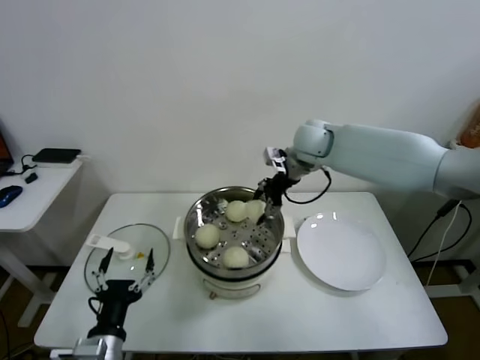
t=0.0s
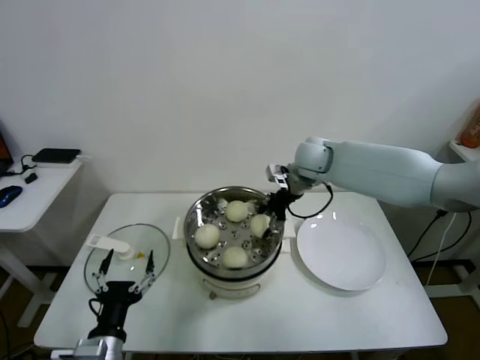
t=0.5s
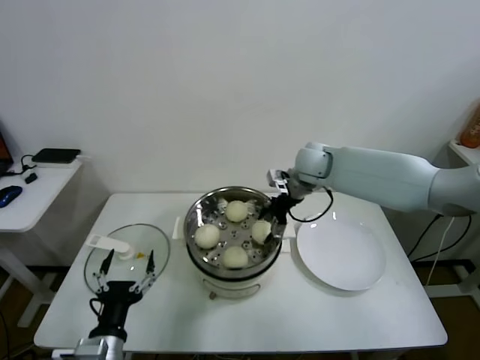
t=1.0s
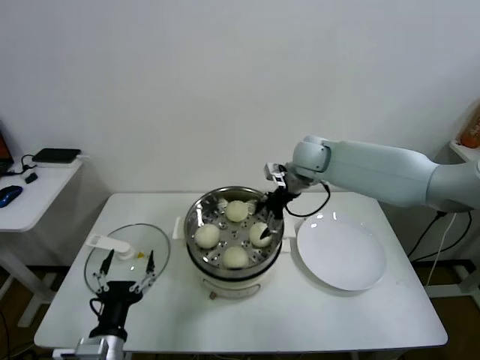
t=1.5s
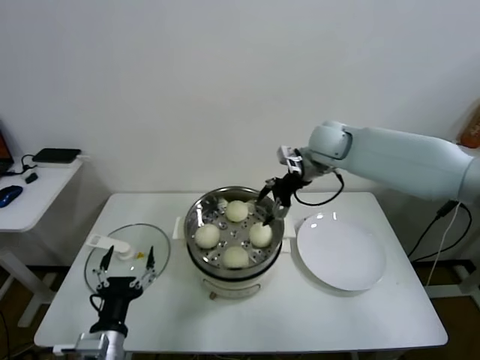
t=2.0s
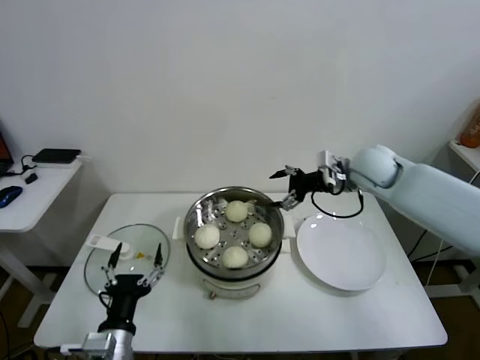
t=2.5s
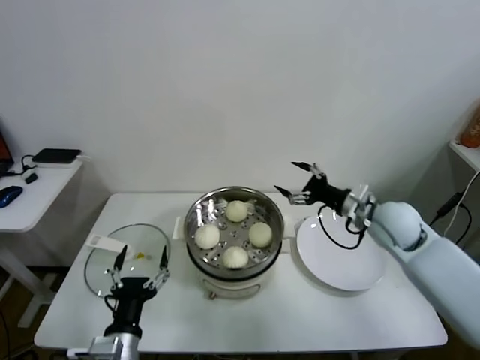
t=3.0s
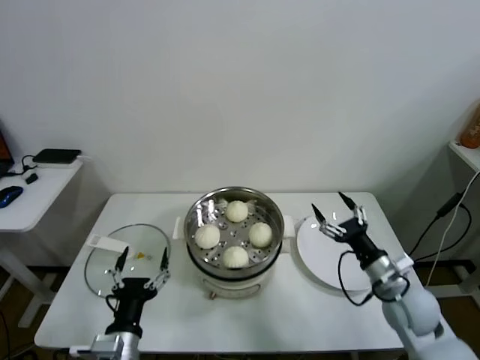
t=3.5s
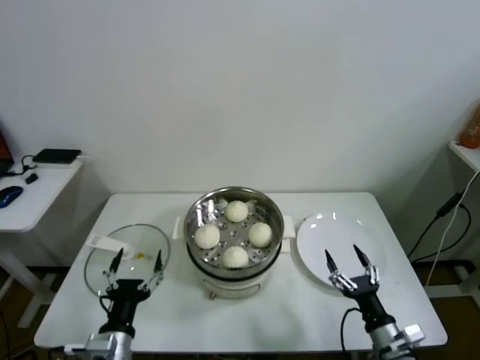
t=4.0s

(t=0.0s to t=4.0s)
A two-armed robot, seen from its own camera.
Task of the whole recording: take steamed baozi put them in steamer.
t=0.0s - t=2.0s: The right gripper opens its fingers.
t=2.0s - t=4.0s: The right gripper goes some 50 cm backward and downward.

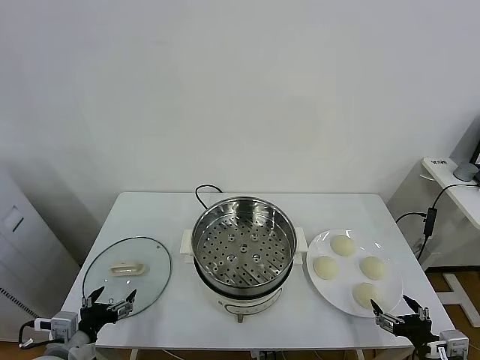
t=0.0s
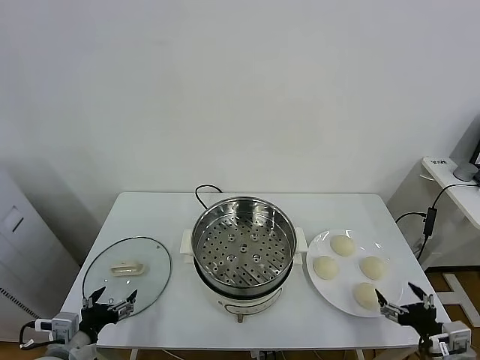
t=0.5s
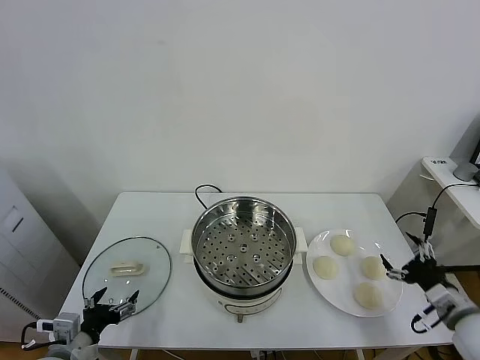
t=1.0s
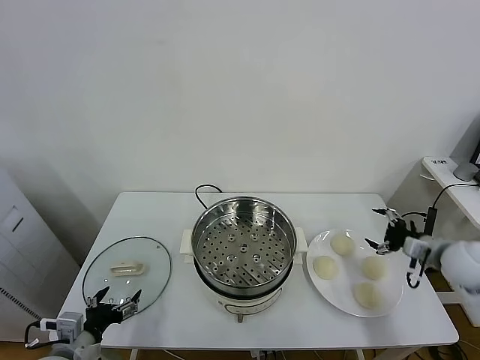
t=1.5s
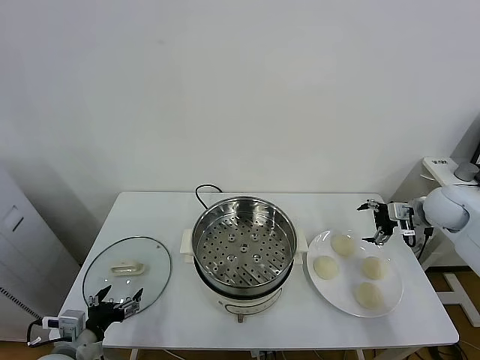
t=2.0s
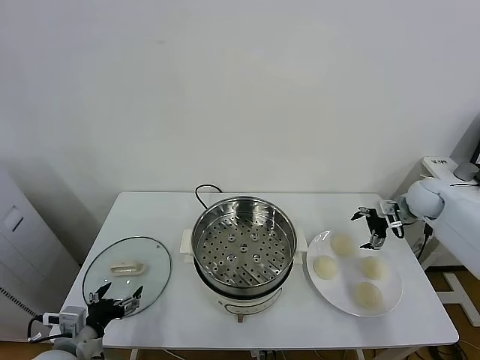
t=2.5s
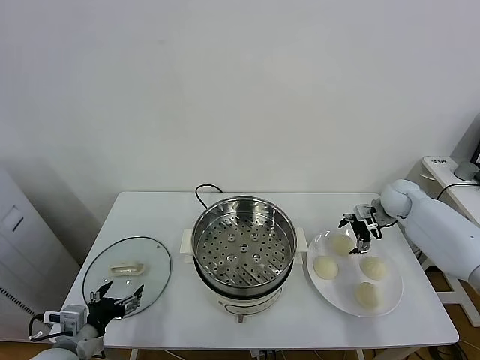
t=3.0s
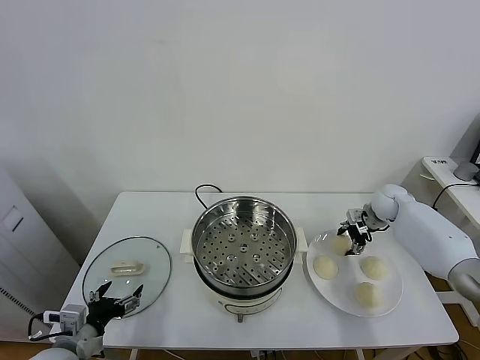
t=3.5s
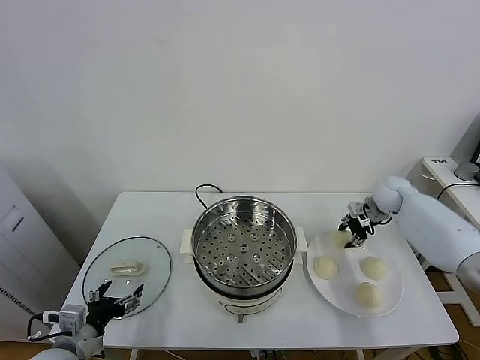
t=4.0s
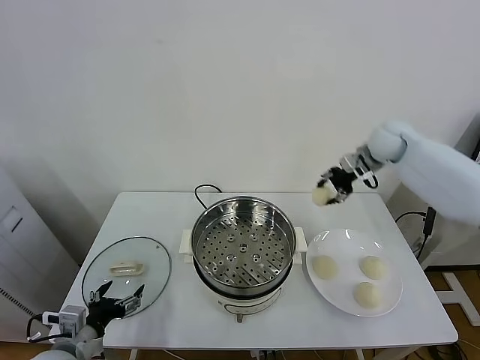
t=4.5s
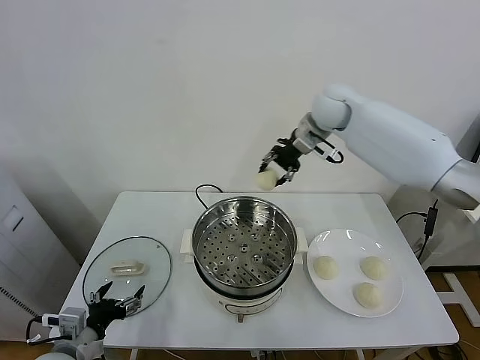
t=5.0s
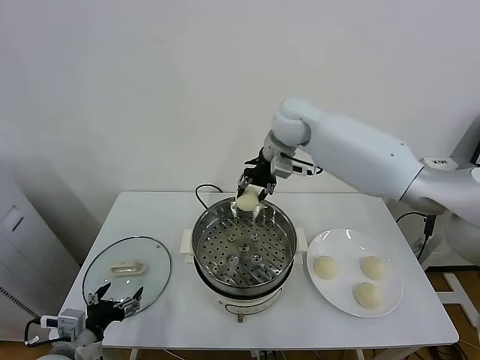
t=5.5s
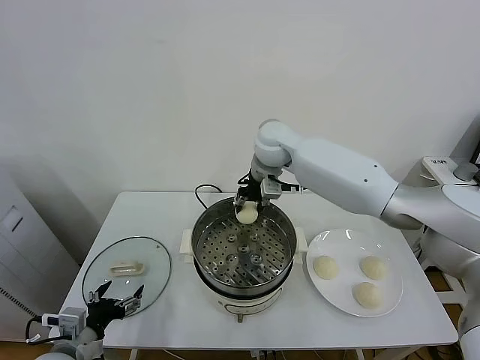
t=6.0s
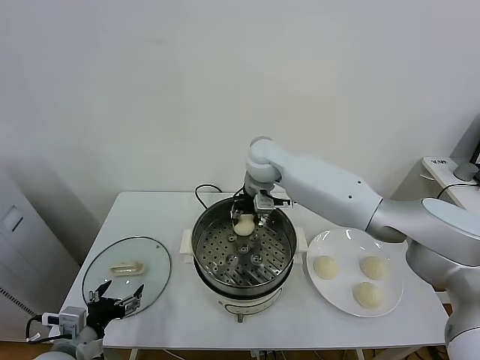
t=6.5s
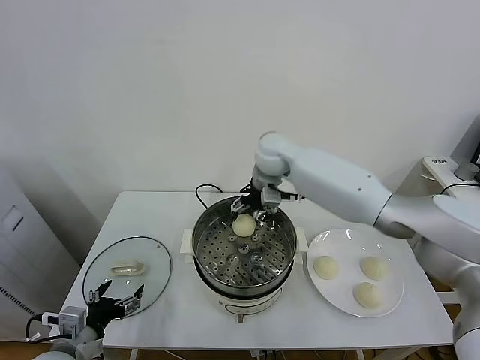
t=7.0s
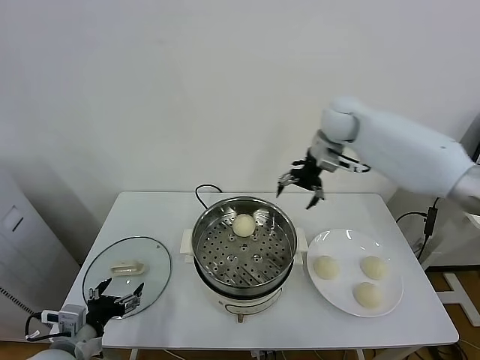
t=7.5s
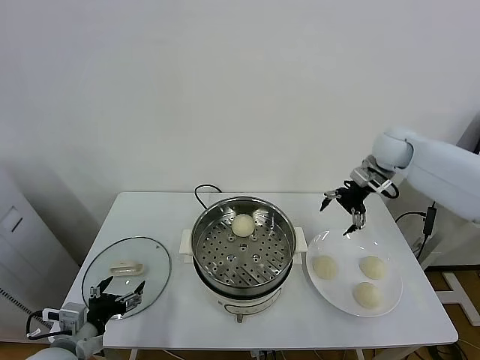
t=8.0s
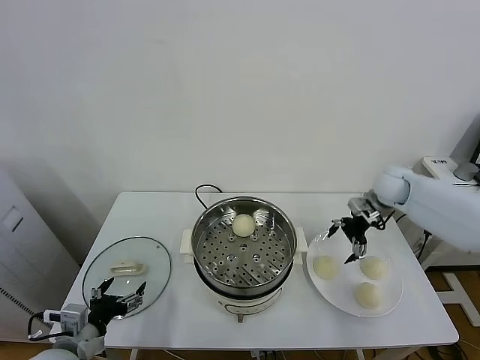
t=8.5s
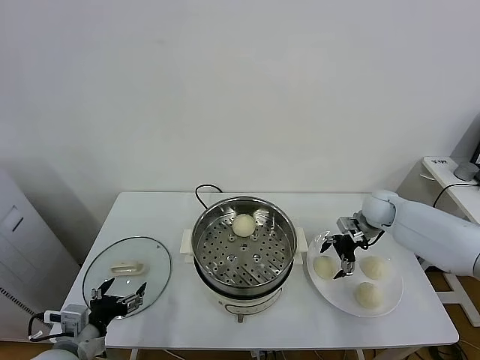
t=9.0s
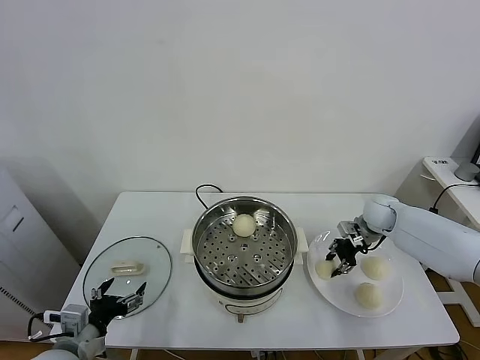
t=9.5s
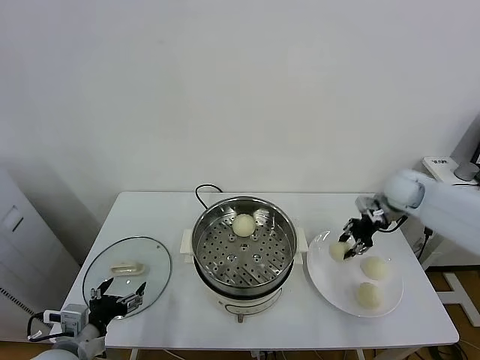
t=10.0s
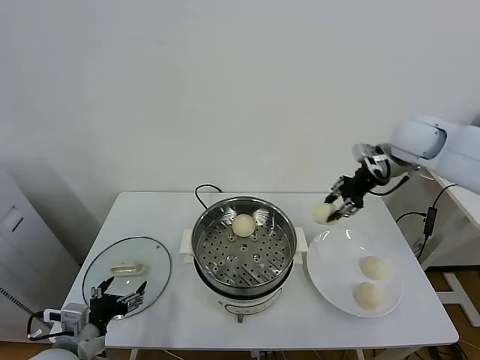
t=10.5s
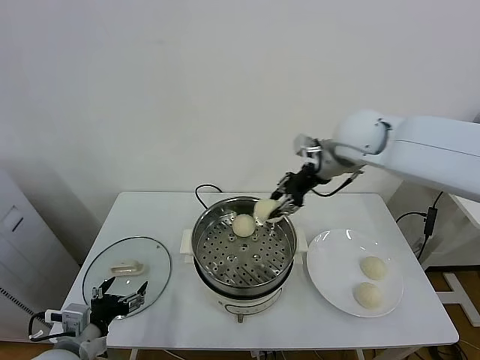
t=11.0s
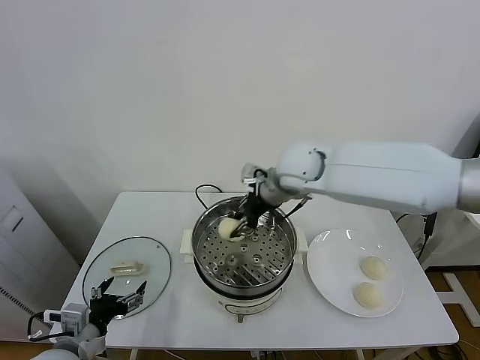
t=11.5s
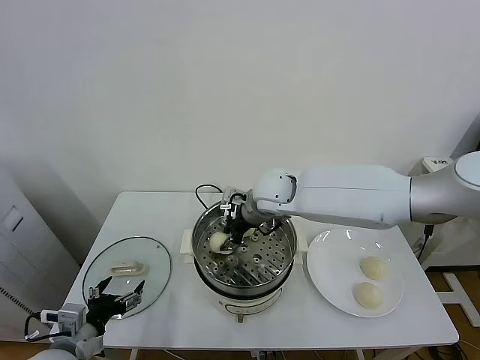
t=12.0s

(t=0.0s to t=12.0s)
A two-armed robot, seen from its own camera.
Task of the whole recording: take steamed baozi put them in steamer.
Step, t=0.0s - t=3.5s: Grasp the baozi in the plate with right gripper.
Step, t=4.0s - t=6.5s: Place the baozi on the steamer with right gripper.
Step, t=7.0s - t=9.0s: Grasp the baozi in the plate with right gripper.
t=2.0s - t=4.0s: The right gripper shifts approximately 10 cm forward and to the left, and closes its fingers.
t=4.0s - t=6.0s: The right gripper goes approximately 35 cm to the left.
t=6.0s - t=8.0s: The right gripper moves to the right, some 30 cm, and opens up.
t=8.0s - t=10.0s: The right gripper travels downward and back again, about 15 cm each way, and closes up.
t=10.0s - t=12.0s: The right gripper shifts approximately 35 cm to the left.

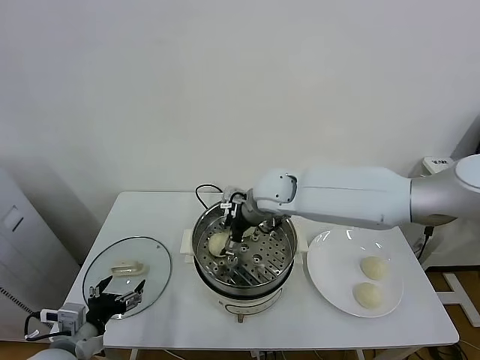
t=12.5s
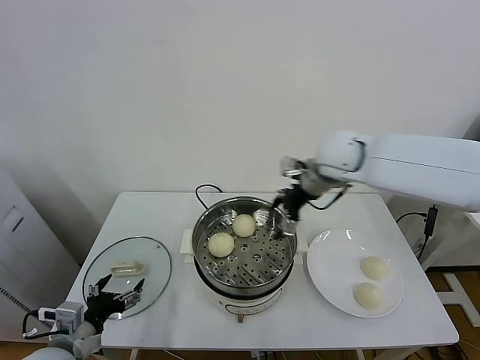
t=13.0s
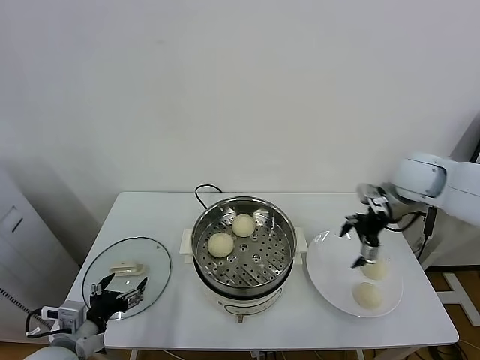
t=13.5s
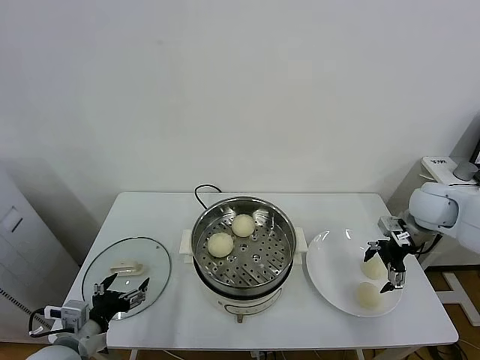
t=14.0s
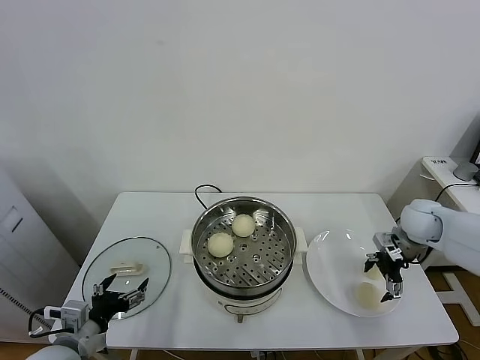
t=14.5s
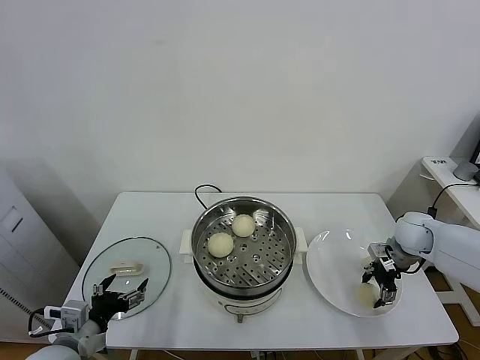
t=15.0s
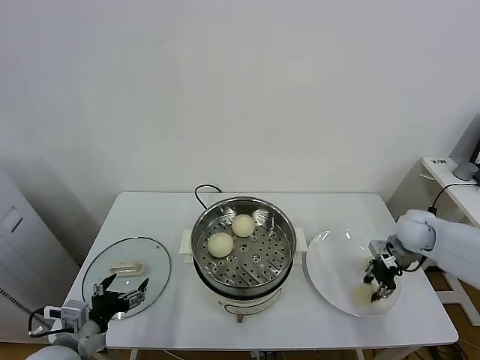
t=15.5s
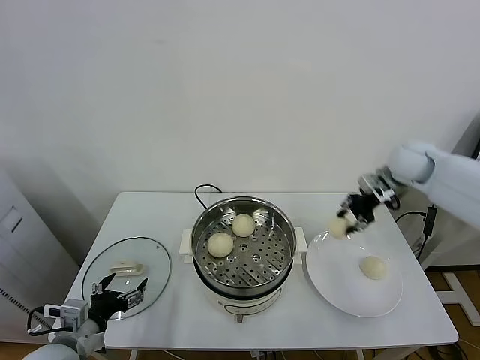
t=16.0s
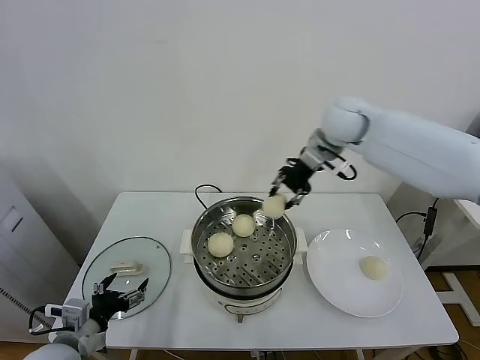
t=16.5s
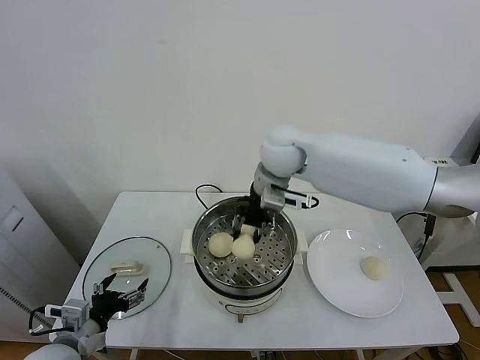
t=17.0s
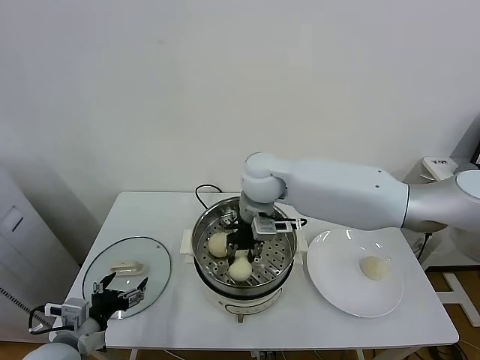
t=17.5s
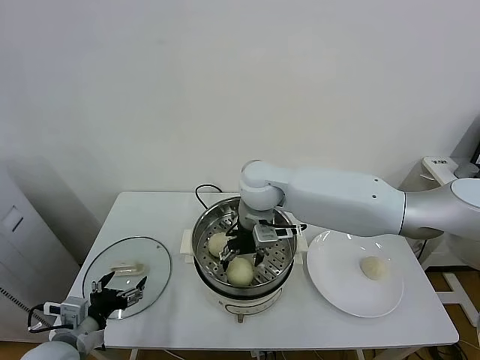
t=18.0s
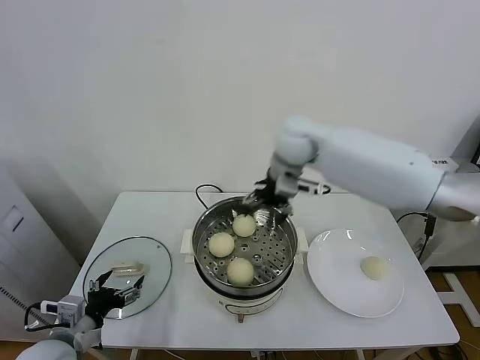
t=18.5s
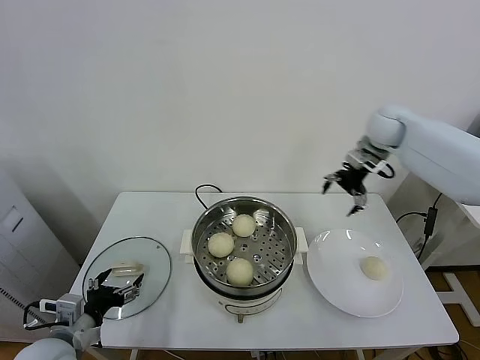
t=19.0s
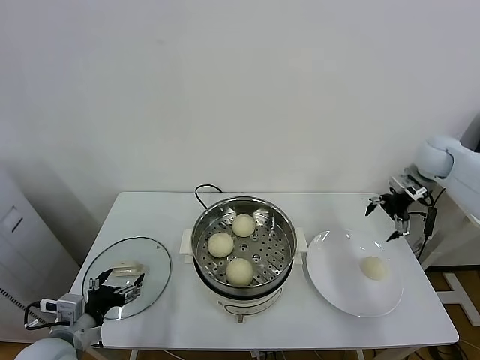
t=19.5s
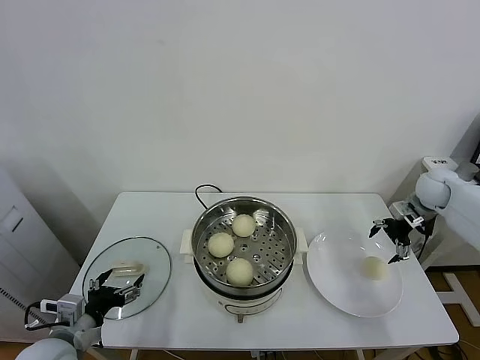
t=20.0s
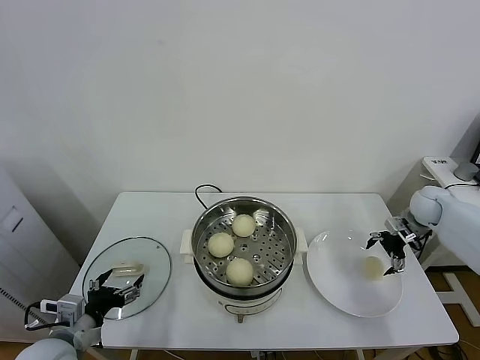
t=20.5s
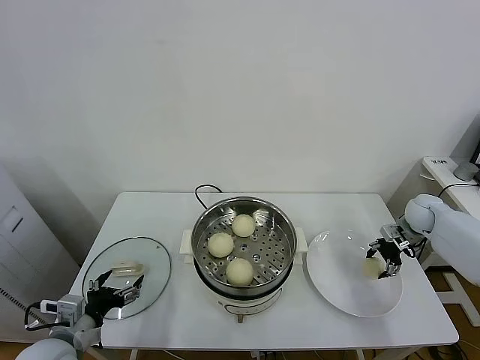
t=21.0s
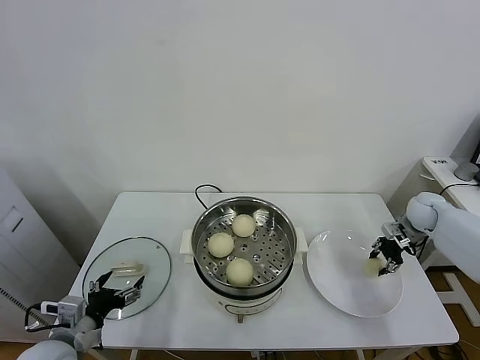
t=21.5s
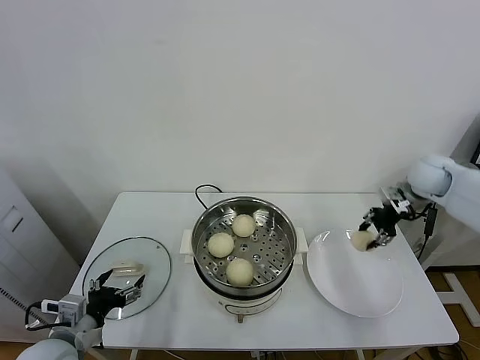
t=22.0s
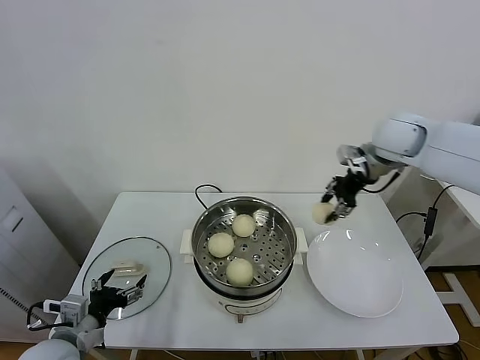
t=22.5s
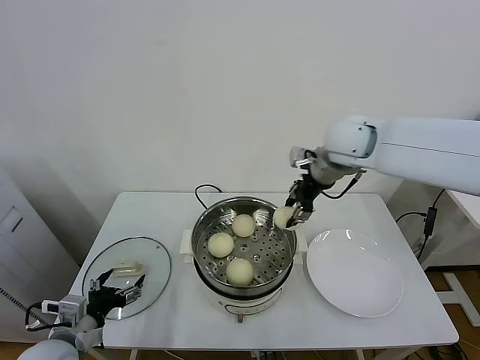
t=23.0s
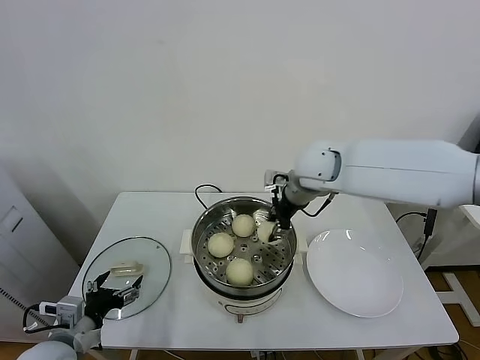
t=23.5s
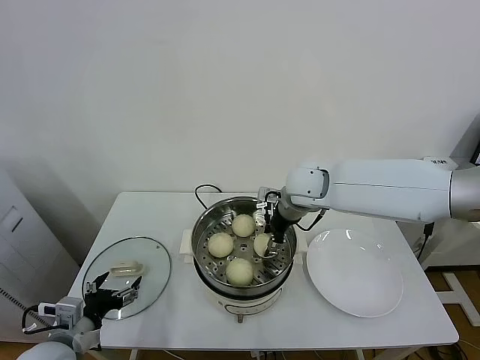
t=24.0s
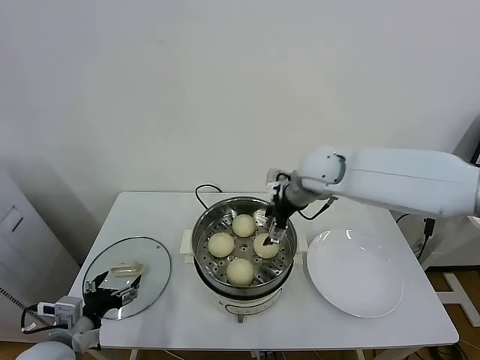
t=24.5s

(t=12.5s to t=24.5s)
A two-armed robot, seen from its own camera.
Task of the whole recording: take steamed baozi put them in steamer.
Step, t=13.0s - t=15.0s: Grasp the baozi in the plate with right gripper.
Step, t=15.5s - t=18.0s: Place the baozi on the steamer with right gripper.
Step, t=18.5s - t=21.0s: Grasp the baozi in the plate with right gripper.
Step, t=21.5s - t=24.0s: Place the baozi on the steamer with right gripper.
t=12.5s - t=14.5s: The right gripper goes some 35 cm to the right.
t=14.5s - t=16.5s: The right gripper moves to the left and upward, about 30 cm, and closes up.
t=16.5s - t=18.5s: The right gripper heads to the left, covering about 5 cm, and opens up.
t=18.5s - t=20.5s: The right gripper heads to the right and downward, covering some 40 cm.
t=20.5s - t=22.5s: The right gripper heads upward and to the left, covering some 30 cm, and closes up.
t=22.5s - t=24.5s: The right gripper shifts roughly 15 cm to the left and downward, and opens up.
